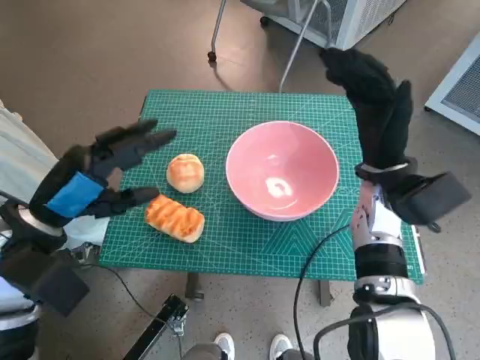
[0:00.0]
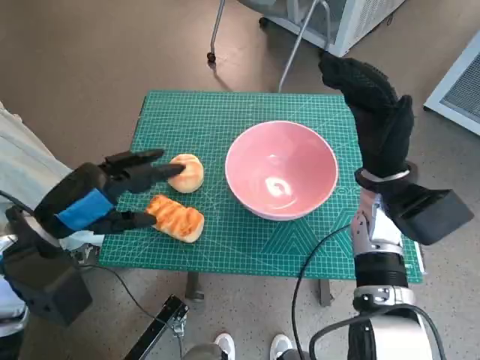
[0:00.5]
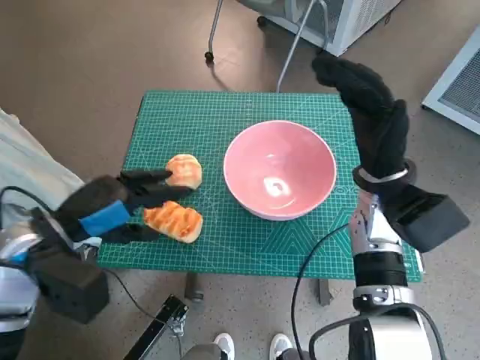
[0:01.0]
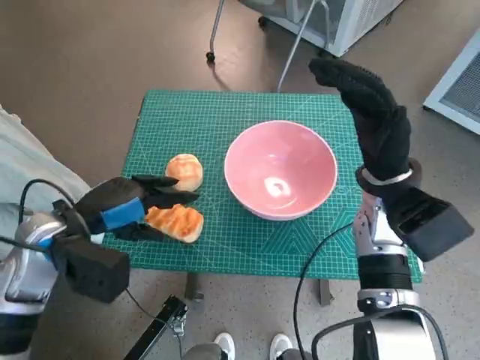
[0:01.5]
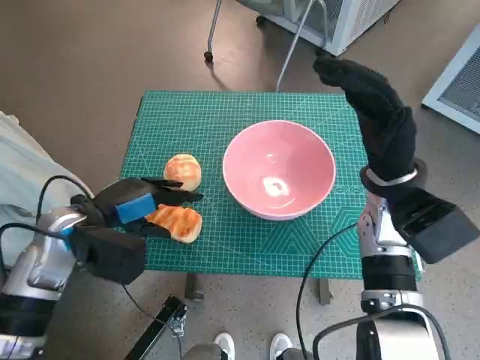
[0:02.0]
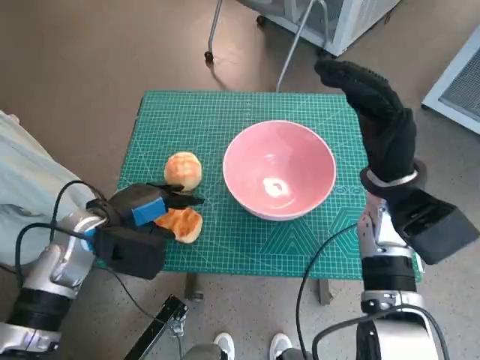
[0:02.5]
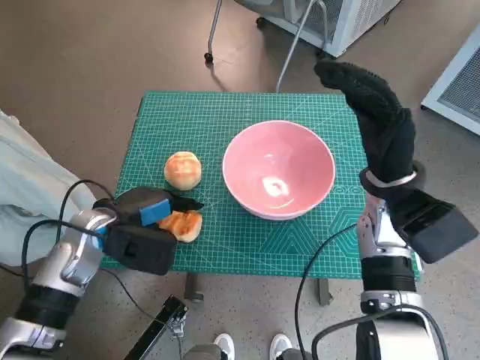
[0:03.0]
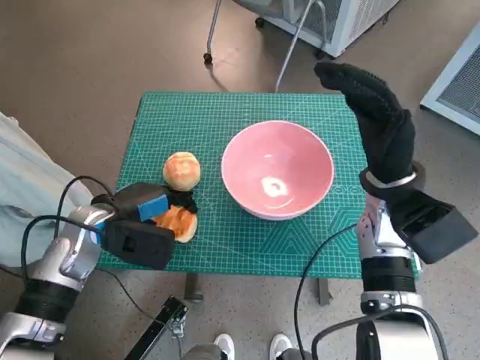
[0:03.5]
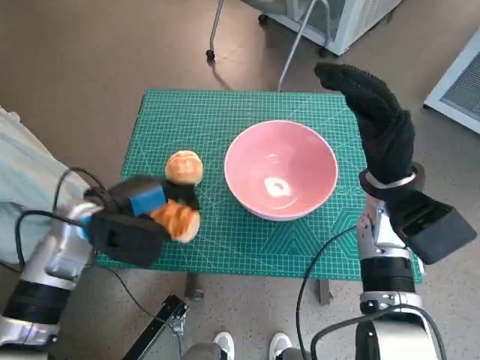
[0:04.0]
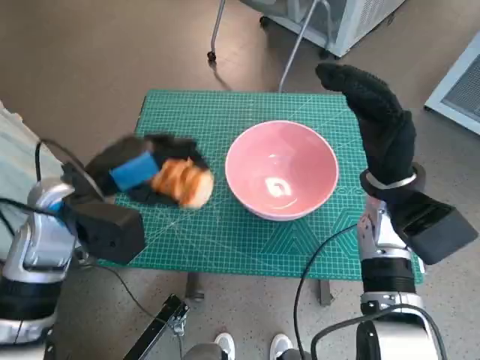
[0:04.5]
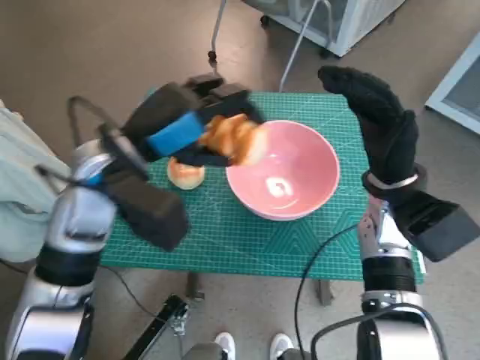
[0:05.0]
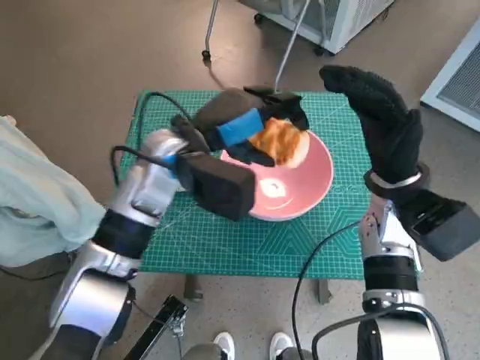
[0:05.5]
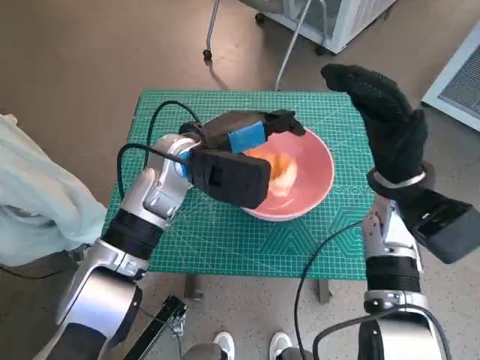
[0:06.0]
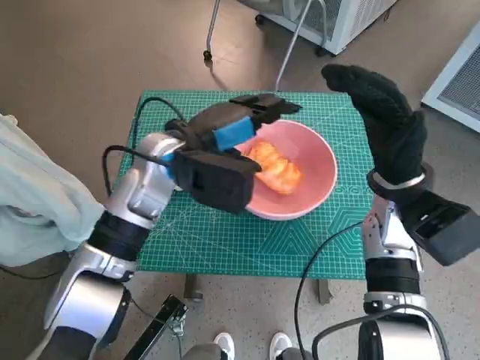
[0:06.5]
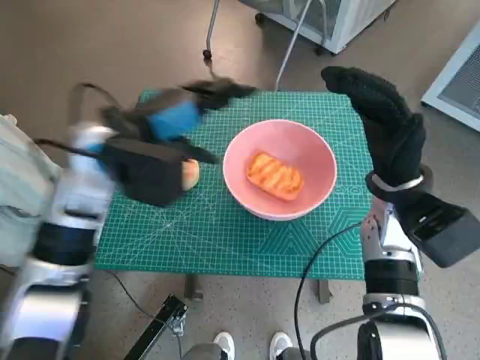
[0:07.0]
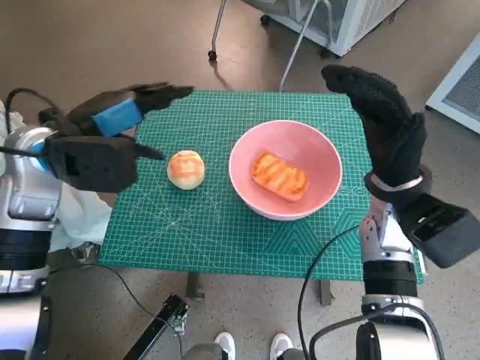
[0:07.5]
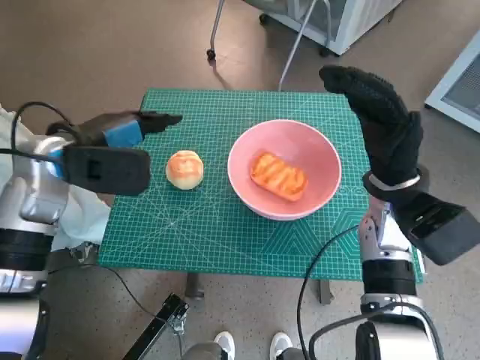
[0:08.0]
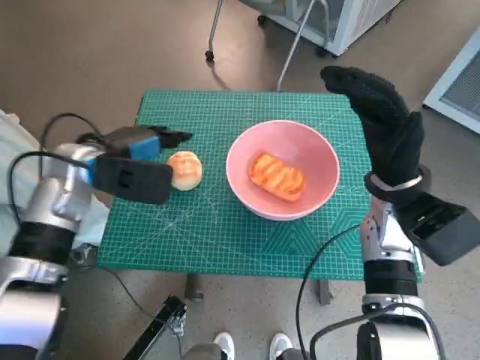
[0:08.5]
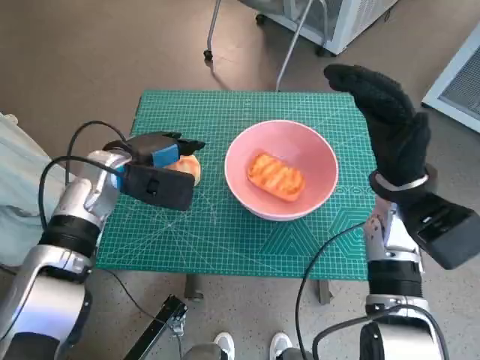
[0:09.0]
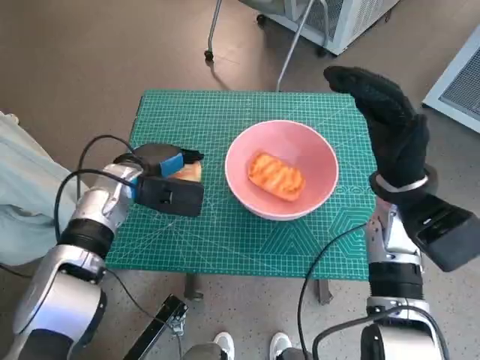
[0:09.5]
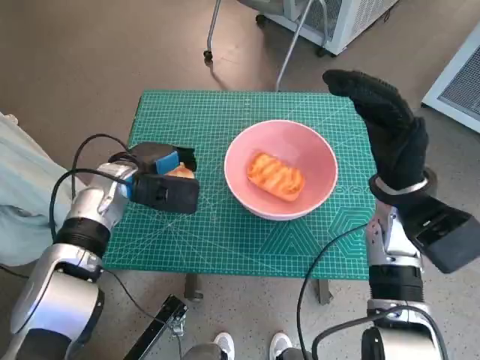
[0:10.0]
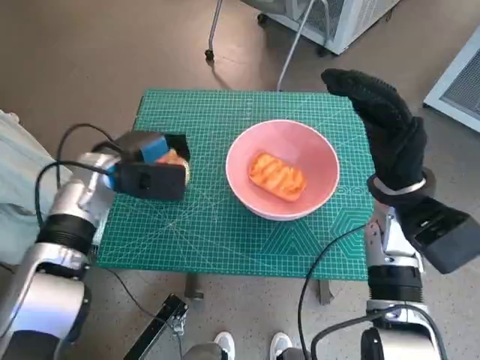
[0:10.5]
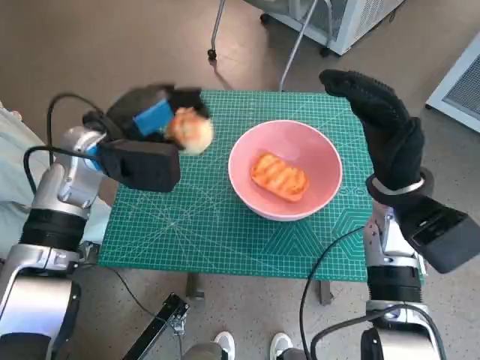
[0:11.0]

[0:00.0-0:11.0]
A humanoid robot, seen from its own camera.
Task of the whole recording: Push the bowl to the center of the table and put the bread into the bowl.
Step, 0:00.0 to 0:03.5: Grasp the long bread with left hand.
Step, 0:04.0 to 0:06.0: Place the long bread in pink bowl with left hand.
Step, 0:06.5 to 0:10.0: Grasp the round bread with left hand.
0:00.0 to 0:02.0: The left hand shifts by about 5 cm.
0:02.0 to 0:03.5: The hands move only a little.
0:03.5 to 0:05.5: The left hand goes some 15 cm to the right and upward.
0:05.5 to 0:07.5: The left hand is displaced to the left by about 10 cm.
0:07.5 to 0:09.0: The left hand moves downward, some 10 cm.

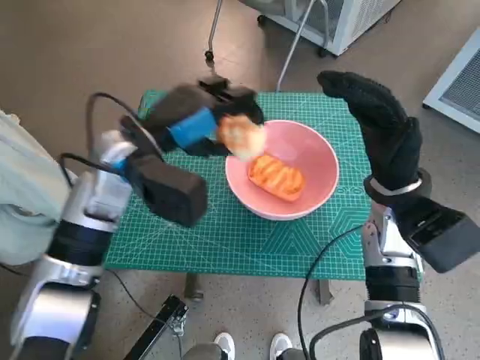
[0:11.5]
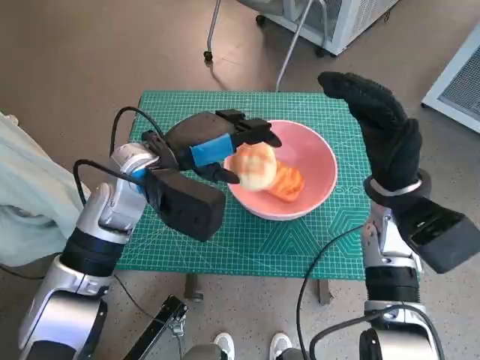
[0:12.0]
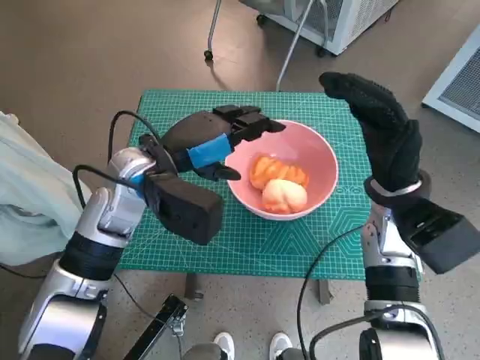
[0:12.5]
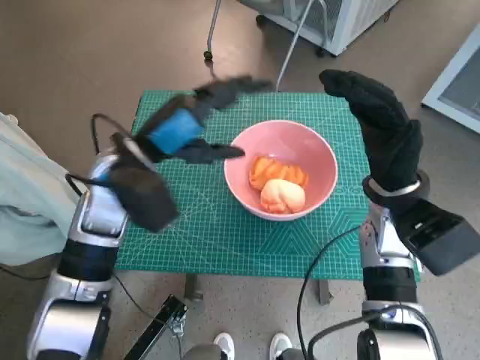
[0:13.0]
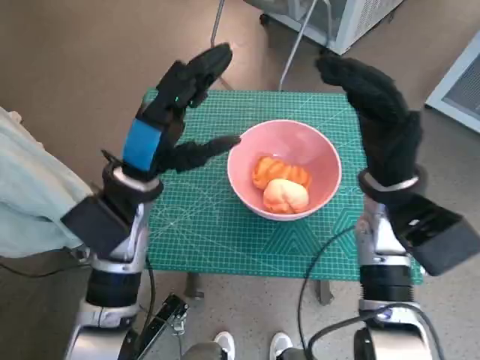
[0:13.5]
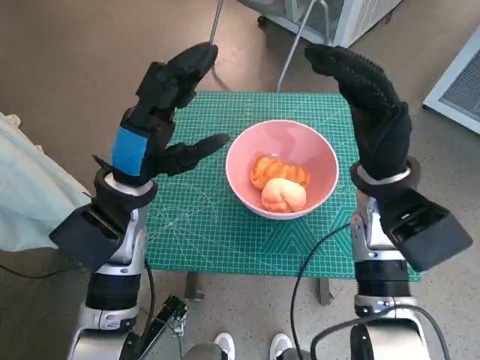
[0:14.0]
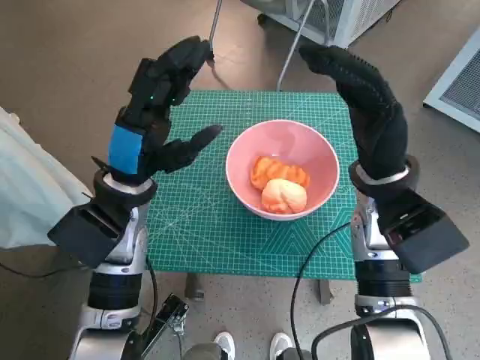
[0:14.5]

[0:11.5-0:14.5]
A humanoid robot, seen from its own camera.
Task of the whole recording: Push the bowl to the center of the table and put the bread into the bowl.
0:11.5 to 0:13.0: The hands make only small movements.

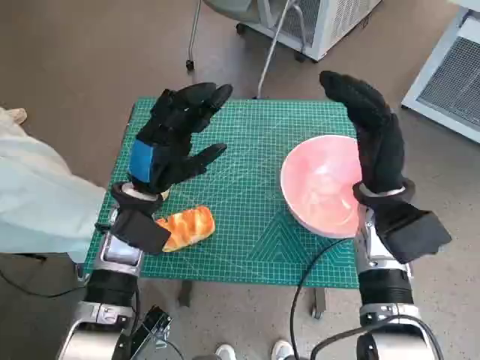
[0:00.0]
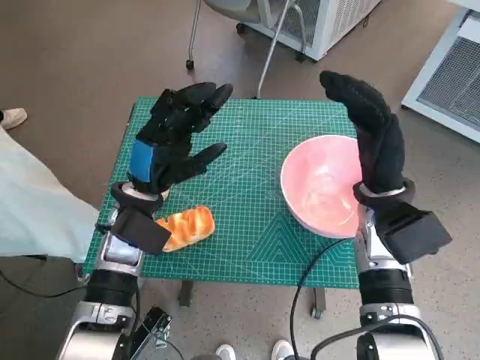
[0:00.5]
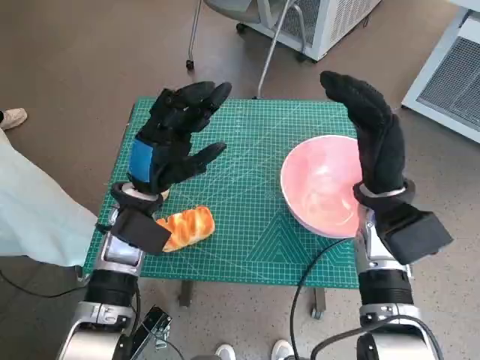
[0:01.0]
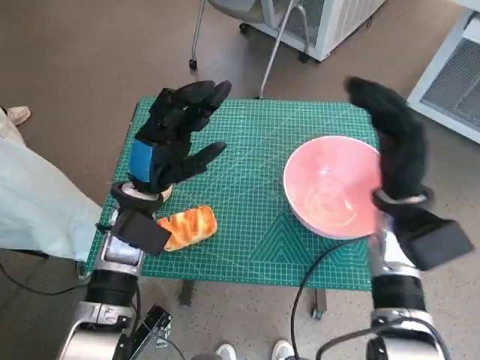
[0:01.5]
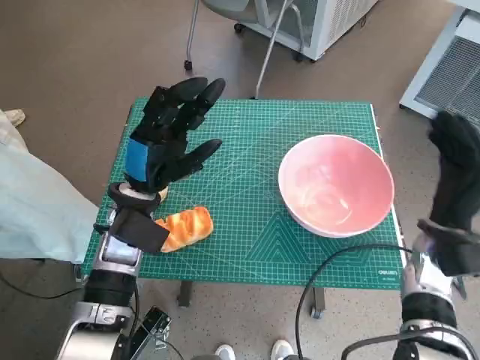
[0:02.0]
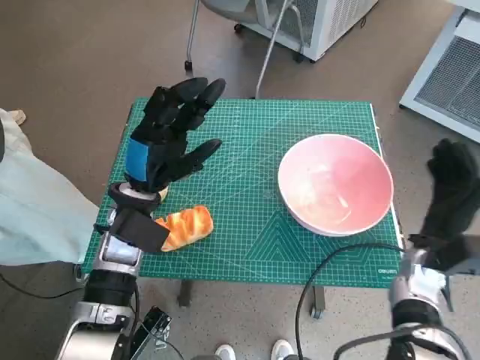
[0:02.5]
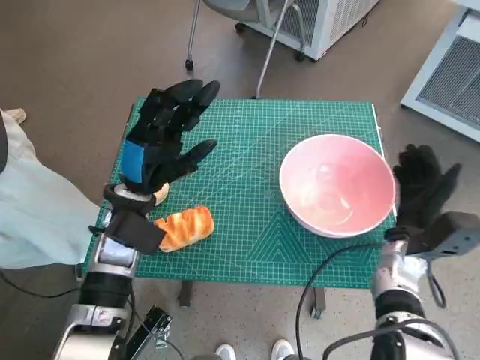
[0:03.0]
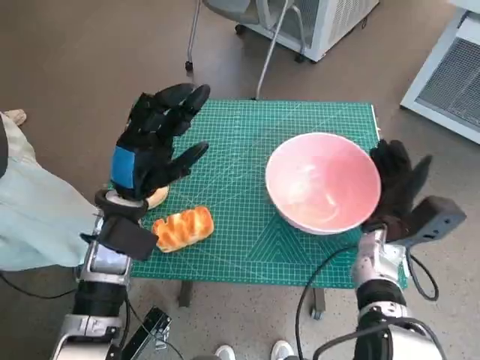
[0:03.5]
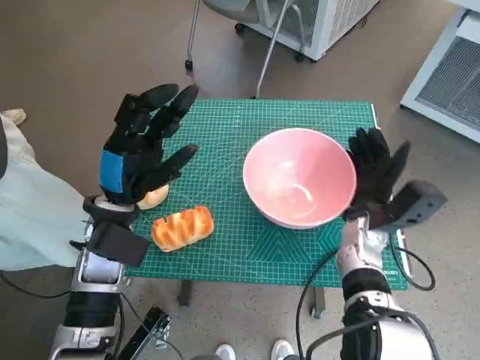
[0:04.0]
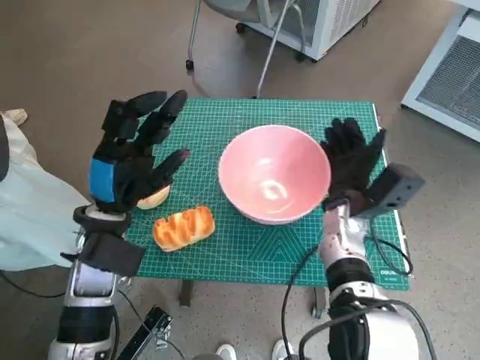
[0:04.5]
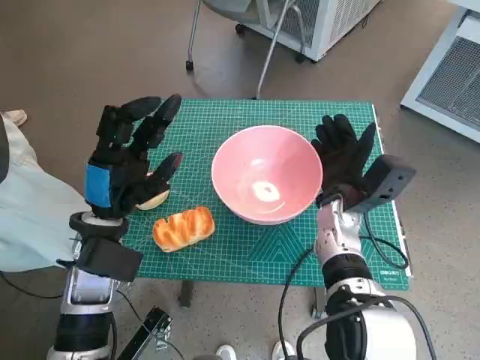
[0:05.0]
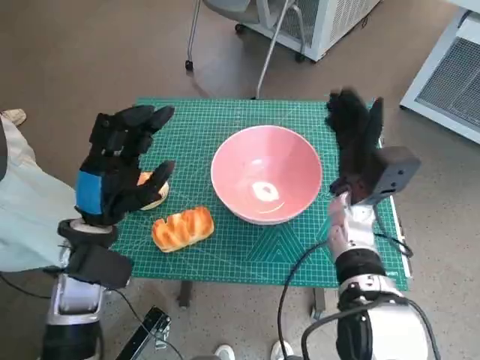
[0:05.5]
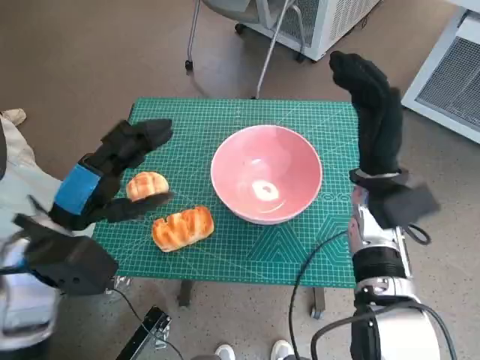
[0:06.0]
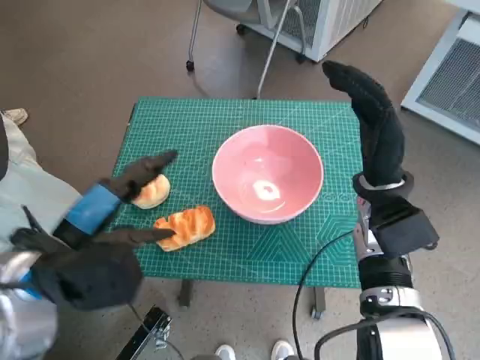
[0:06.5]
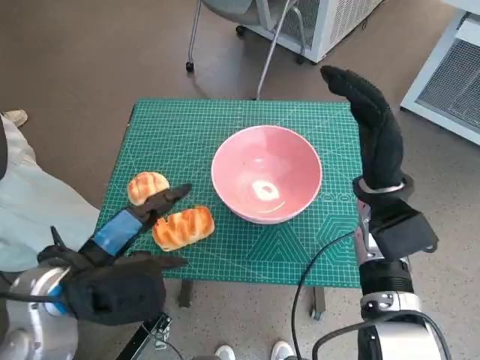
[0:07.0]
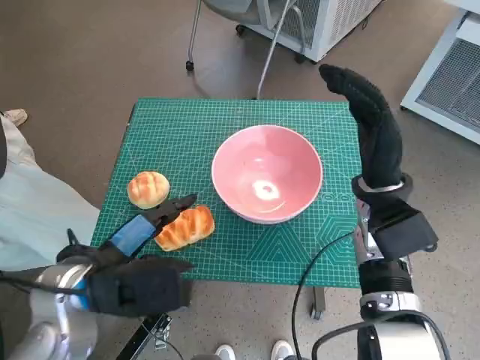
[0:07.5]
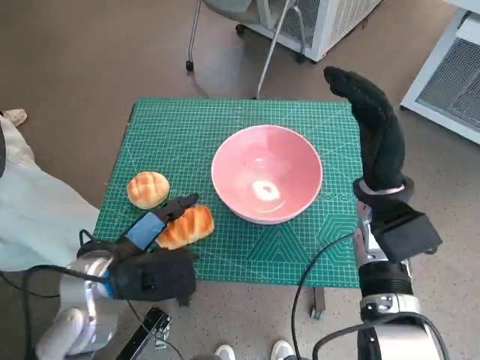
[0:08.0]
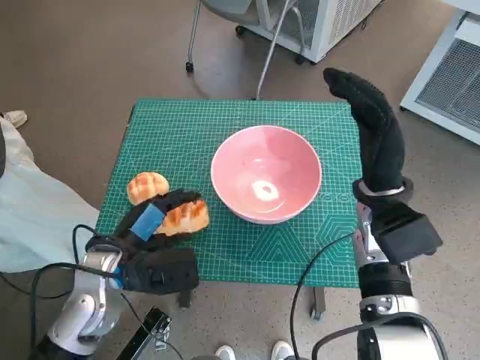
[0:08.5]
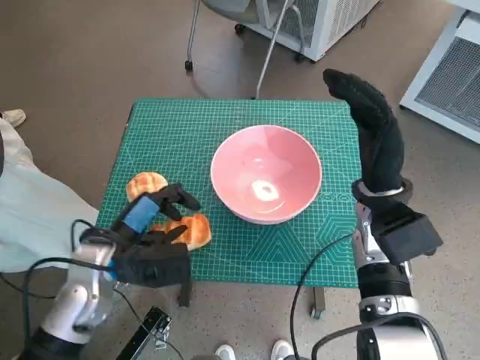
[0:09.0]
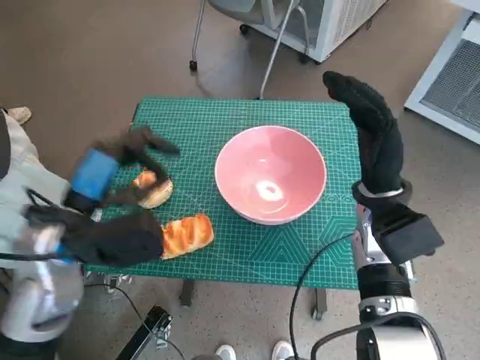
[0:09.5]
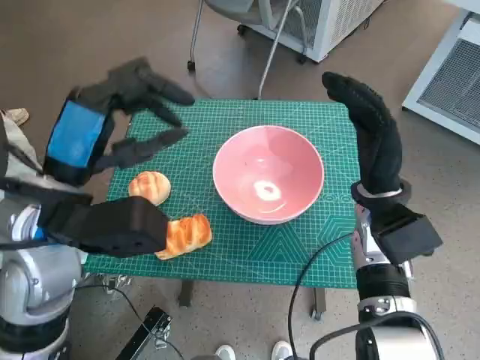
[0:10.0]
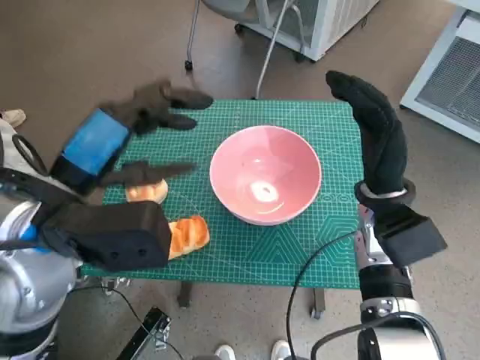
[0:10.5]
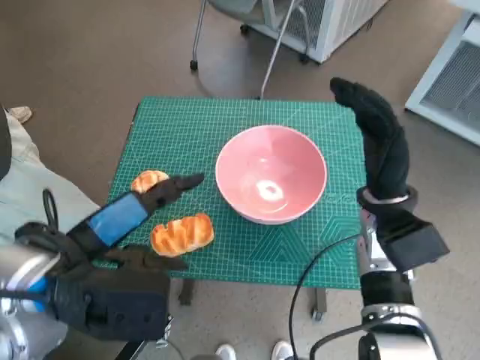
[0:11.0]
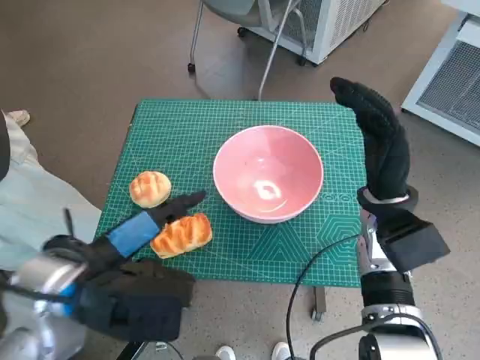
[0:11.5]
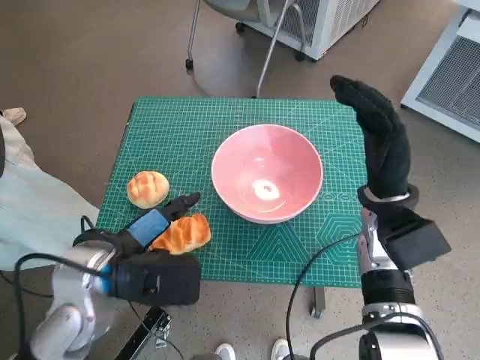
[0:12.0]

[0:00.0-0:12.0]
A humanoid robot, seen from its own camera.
Task of the whole recording: Push the bowl to the center of the table and put the bread into the bowl.
Step, 0:00.0 to 0:05.0: Move the pink bowl to the center of table with right hand.
0:02.0 to 0:04.0: The right hand moves to the left, about 10 cm.
0:04.0 to 0:06.0: The left hand shifts approximately 5 cm backward. Meanwhile the right hand heads upward, covering some 10 cm.
0:06.0 to 0:08.0: The left hand ends up about 5 cm from where it was.
0:08.0 to 0:10.0: The left hand goes roughly 10 cm upward.
0:10.0 to 0:12.0: The left hand travels downward by some 10 cm.
